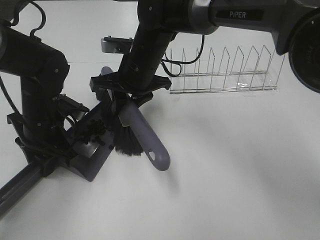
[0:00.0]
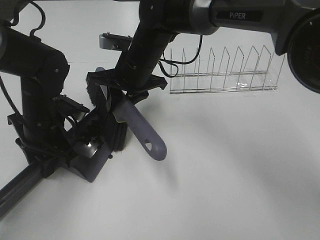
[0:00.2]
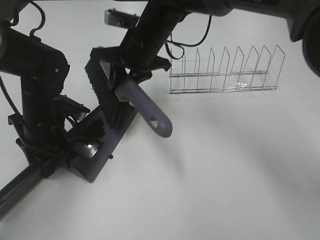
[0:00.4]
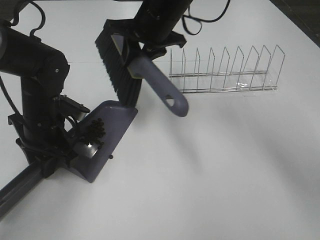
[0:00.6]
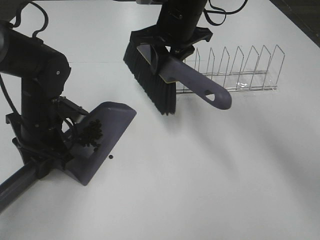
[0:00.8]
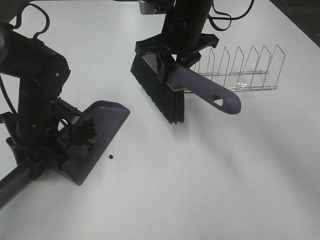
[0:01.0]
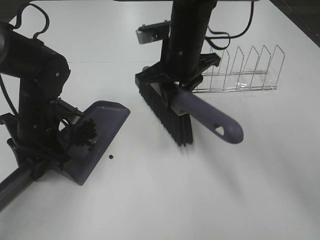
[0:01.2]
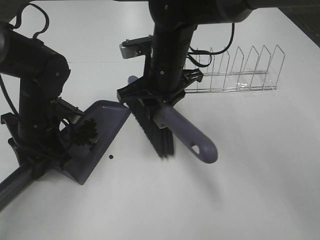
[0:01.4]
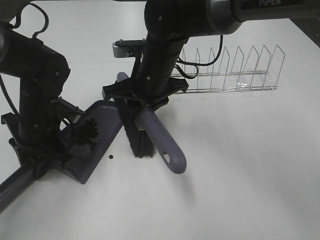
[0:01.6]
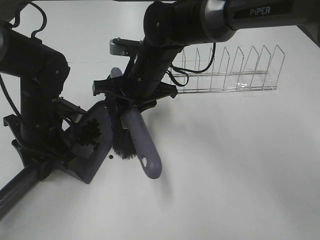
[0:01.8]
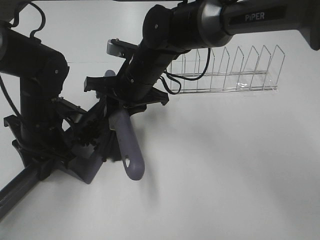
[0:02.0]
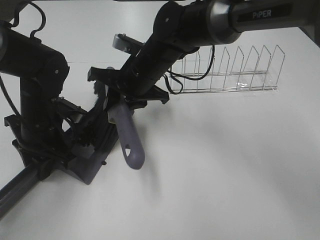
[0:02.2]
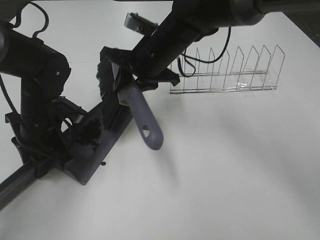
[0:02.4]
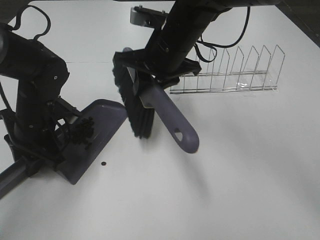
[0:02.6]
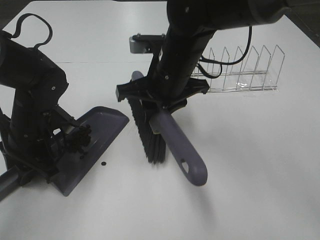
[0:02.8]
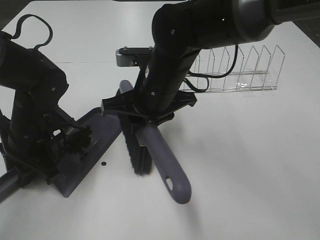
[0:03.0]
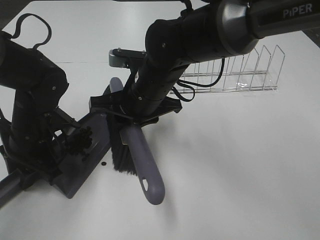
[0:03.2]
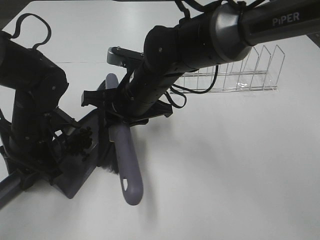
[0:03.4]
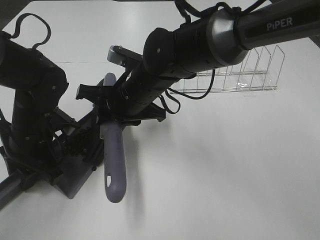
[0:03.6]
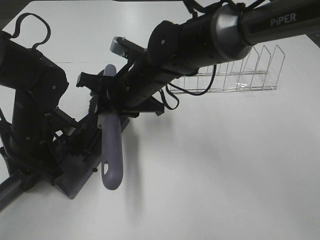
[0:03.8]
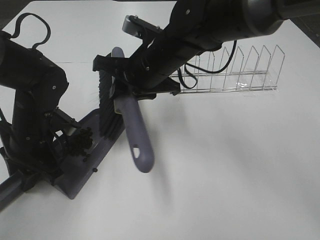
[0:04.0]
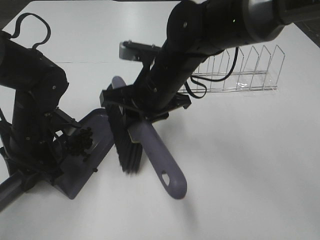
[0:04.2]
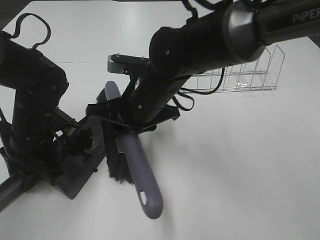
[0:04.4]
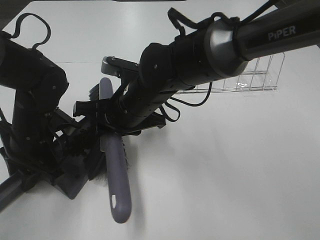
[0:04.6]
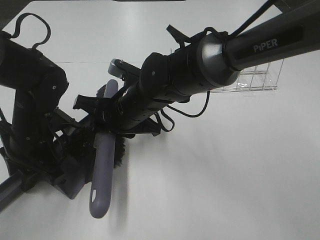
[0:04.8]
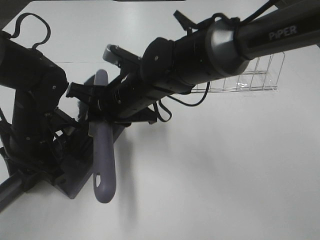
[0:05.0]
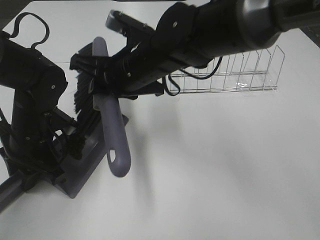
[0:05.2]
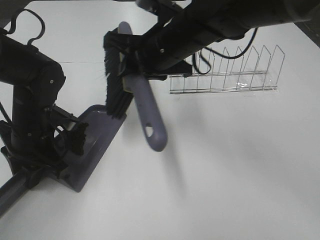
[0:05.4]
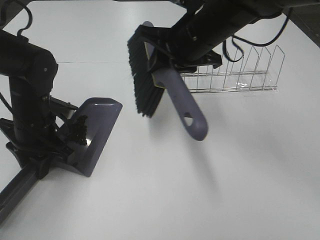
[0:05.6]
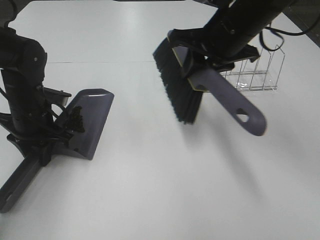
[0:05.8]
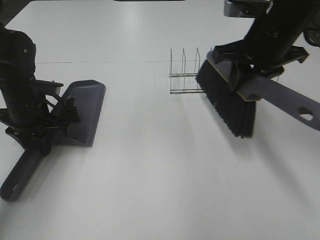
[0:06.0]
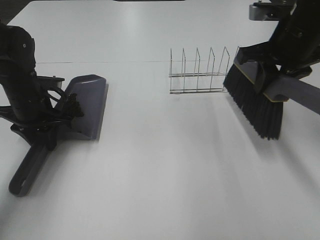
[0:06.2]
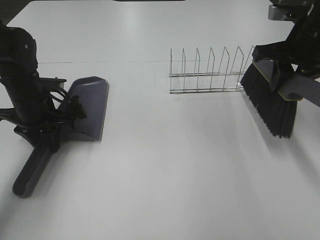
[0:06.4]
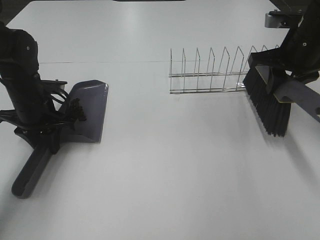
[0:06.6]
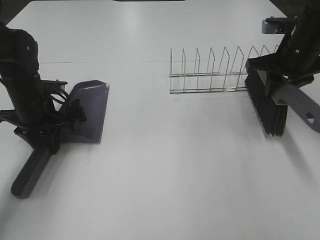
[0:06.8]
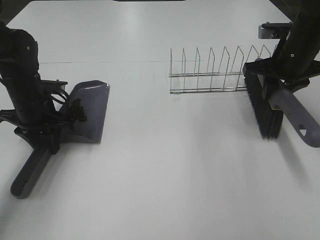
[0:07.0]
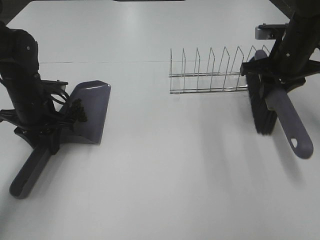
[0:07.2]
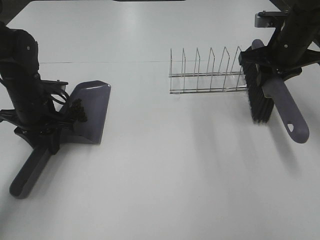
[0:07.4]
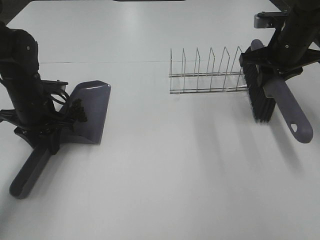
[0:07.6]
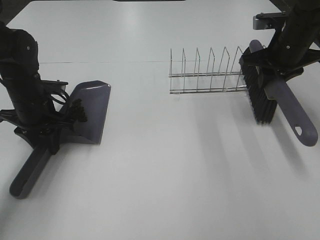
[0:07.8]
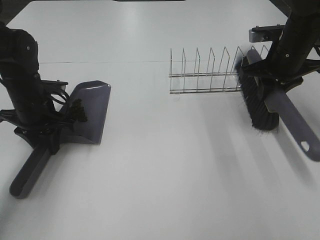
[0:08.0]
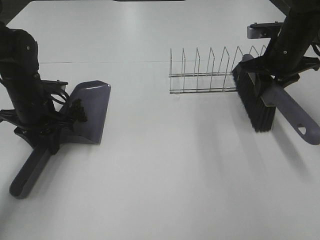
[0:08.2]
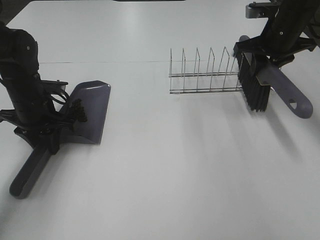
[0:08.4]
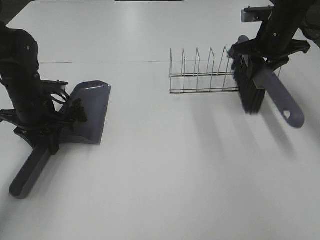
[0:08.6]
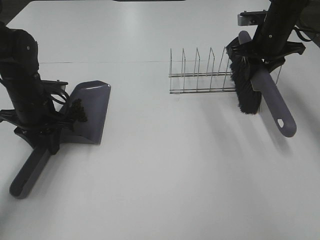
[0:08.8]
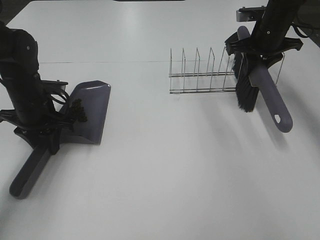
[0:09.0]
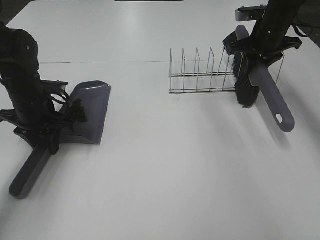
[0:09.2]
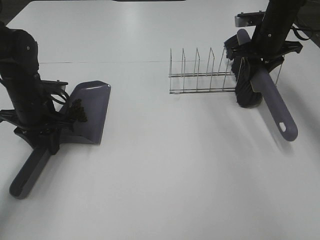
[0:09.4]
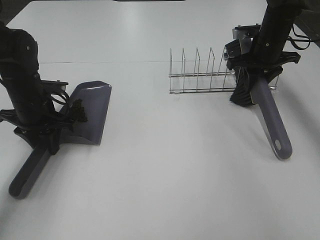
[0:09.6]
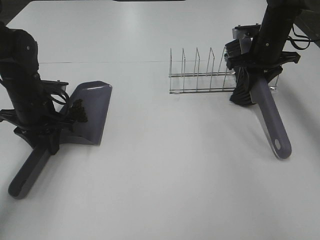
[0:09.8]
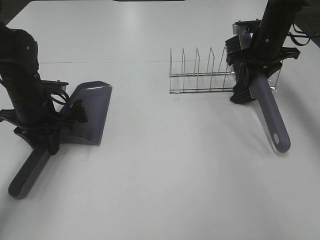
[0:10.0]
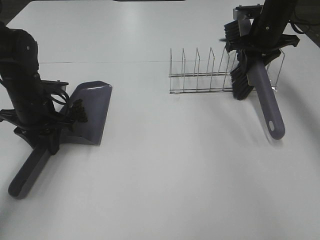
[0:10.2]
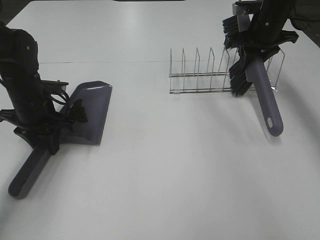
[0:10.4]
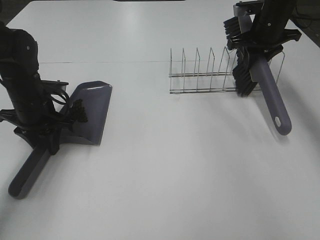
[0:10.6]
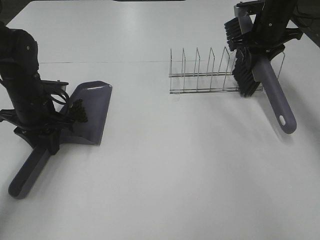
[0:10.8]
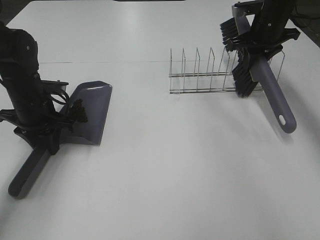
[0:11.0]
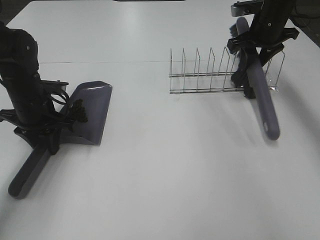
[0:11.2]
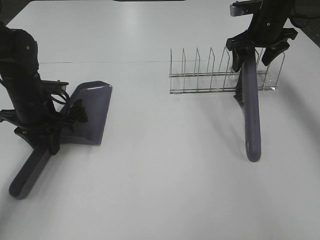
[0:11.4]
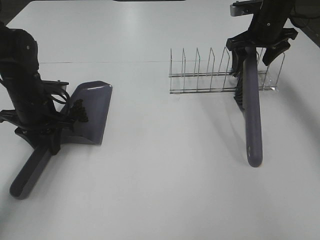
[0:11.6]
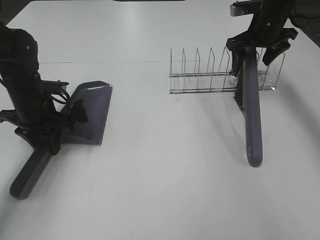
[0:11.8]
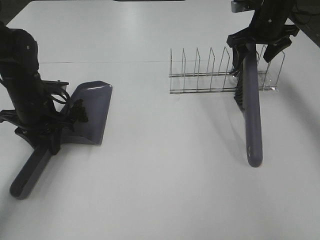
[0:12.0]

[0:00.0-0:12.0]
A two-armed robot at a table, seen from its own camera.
Task of the whole recording: Sweep Coffee Bean.
Step, 0:00.0 to 0:05.2: Right hand:sweep the coffee beans into the dustpan.
Step, 0:05.4 to 0:11.4: Right hand:place the broom on the rack.
0:00.0 to 0:01.6: The right gripper reaches roughly 10 cm upward, then returns.
0:01.6 to 0:03.0: The right gripper heads backward, covering roughly 5 cm.
0:04.4 to 0:06.0: The left gripper shifts roughly 5 cm forward; the right gripper moves to the right and upward, some 20 cm.
0:06.0 to 0:07.6: The right gripper travels to the right, forward and downward by about 10 cm.
0:07.6 to 0:09.0: The right gripper heads forward, covering approximately 5 cm.
0:09.0 to 0:10.4: The grippers stay close to where they were, moving slightly.
0:10.4 to 0:12.0: The right gripper opens.

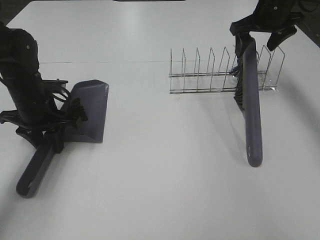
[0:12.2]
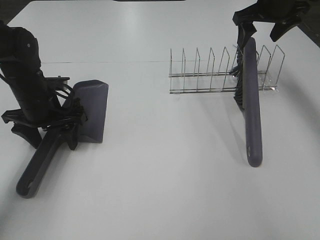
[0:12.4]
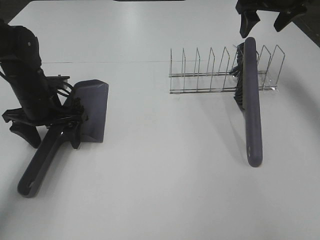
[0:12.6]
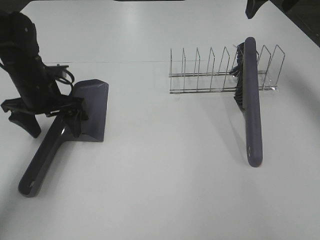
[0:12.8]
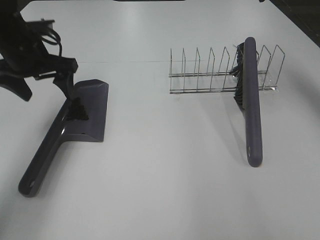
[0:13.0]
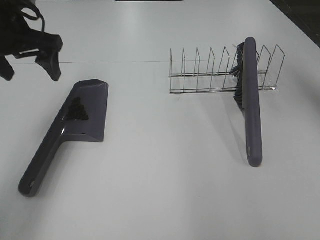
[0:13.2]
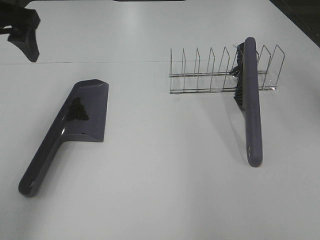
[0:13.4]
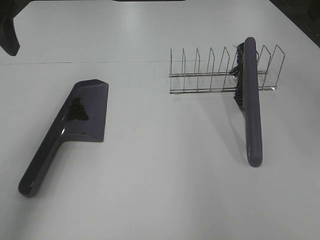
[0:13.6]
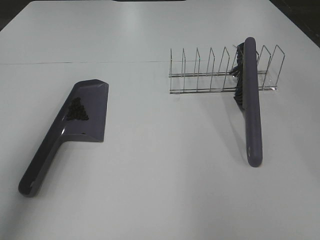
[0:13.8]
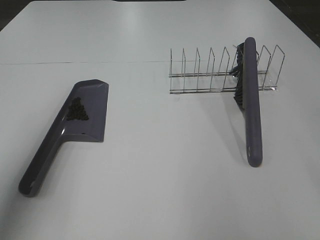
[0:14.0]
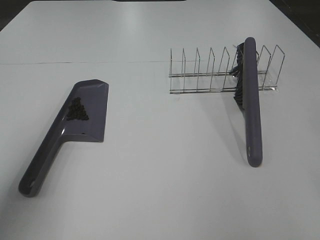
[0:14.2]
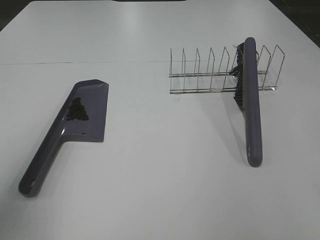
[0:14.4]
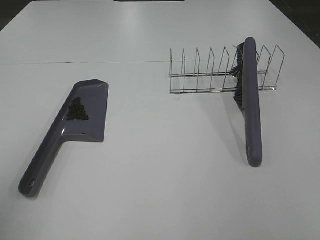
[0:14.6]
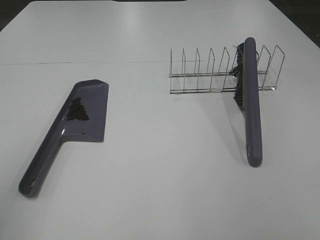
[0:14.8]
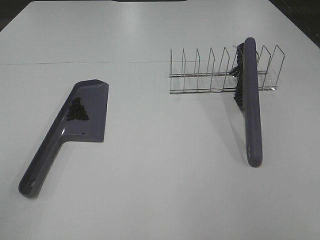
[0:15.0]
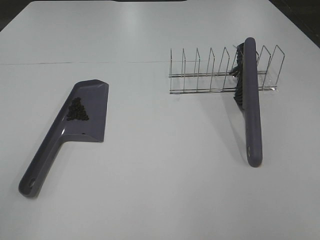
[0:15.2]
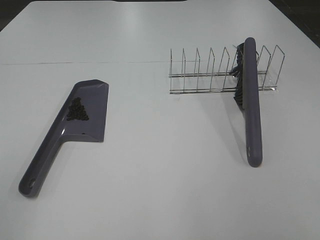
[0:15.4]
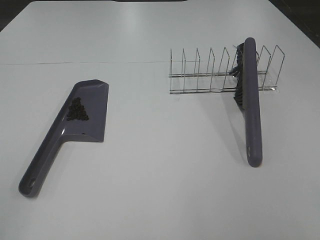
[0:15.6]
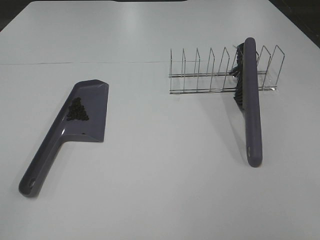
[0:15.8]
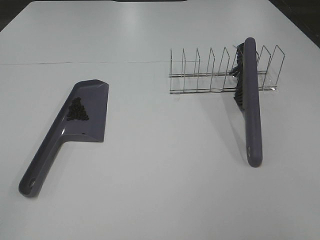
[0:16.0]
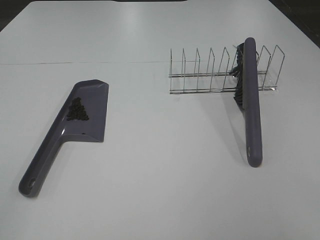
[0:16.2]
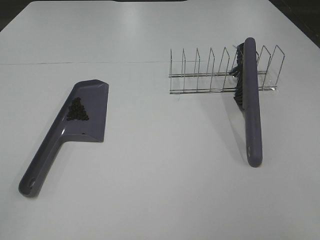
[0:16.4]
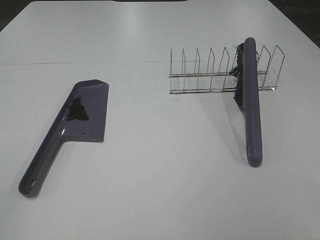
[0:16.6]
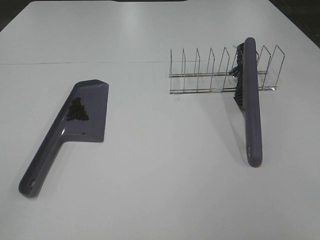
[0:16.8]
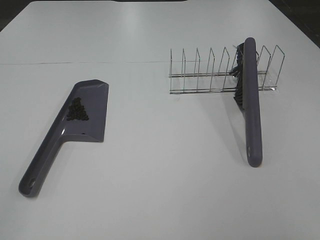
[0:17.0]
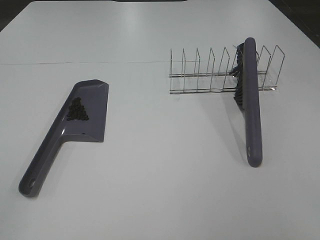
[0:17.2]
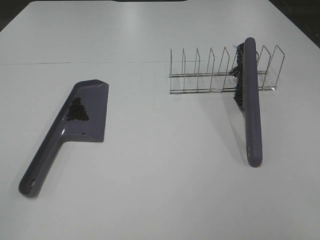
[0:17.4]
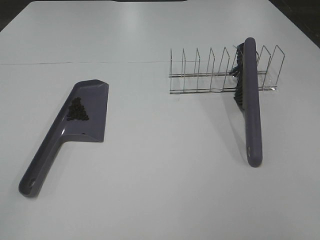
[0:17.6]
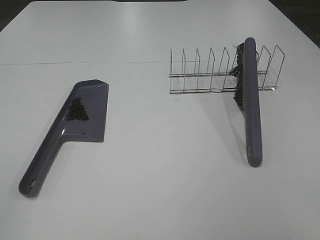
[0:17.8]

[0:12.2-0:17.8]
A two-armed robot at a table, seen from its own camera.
Task of the whole recording: Sweep Coffee Bean.
0:12.2 to 0:13.6: The left gripper is displaced upward by some 25 cm, and opens its fingers, while the right gripper shifts roughly 25 cm backward and upward.
0:13.6 to 0:15.0: The left gripper heads backward, covering about 25 cm.
0:16.4 to 0:17.8: The two grippers keep their place.

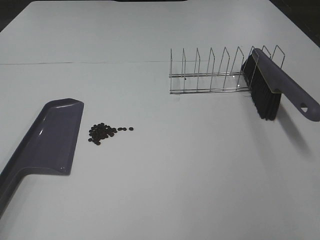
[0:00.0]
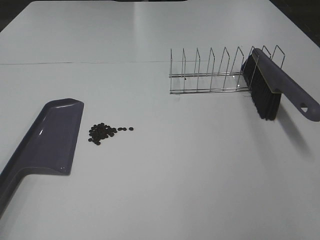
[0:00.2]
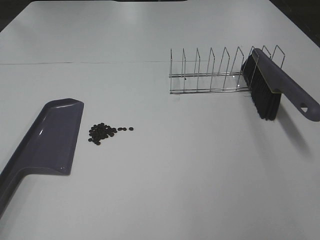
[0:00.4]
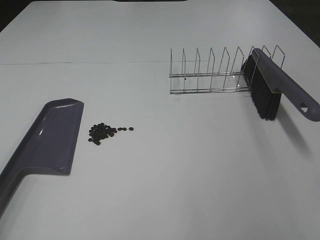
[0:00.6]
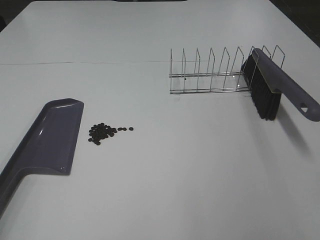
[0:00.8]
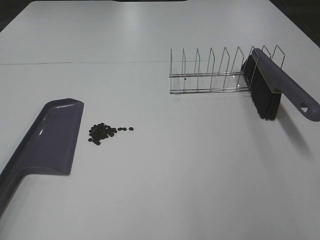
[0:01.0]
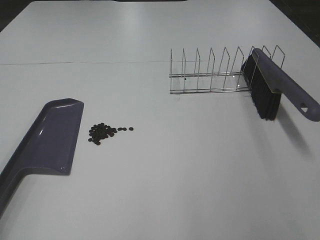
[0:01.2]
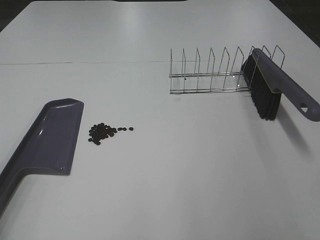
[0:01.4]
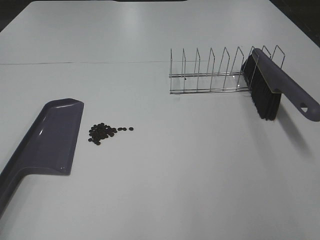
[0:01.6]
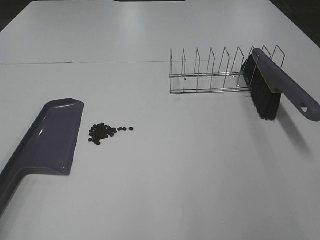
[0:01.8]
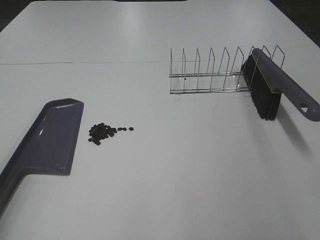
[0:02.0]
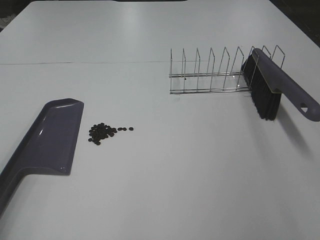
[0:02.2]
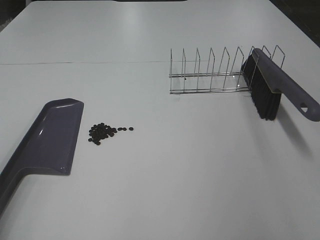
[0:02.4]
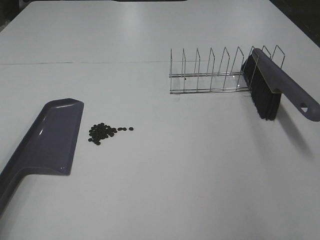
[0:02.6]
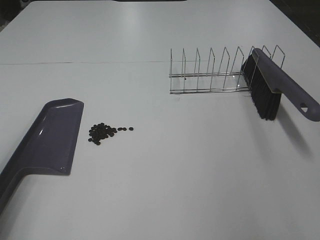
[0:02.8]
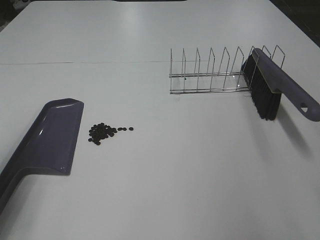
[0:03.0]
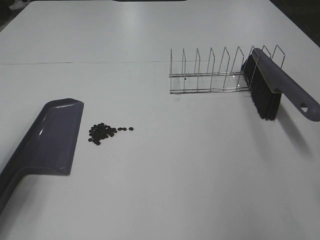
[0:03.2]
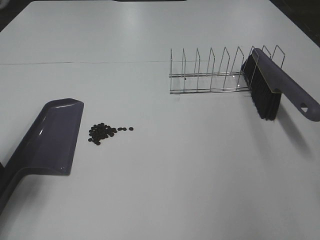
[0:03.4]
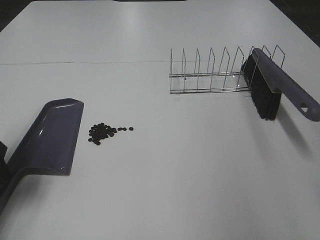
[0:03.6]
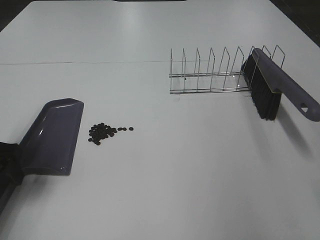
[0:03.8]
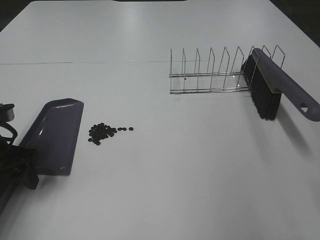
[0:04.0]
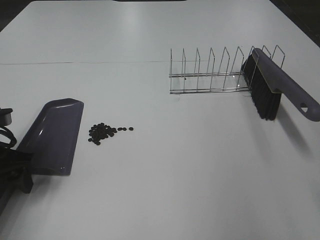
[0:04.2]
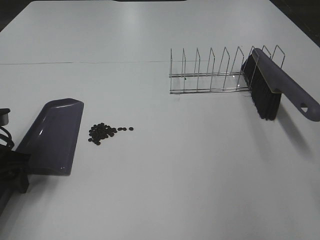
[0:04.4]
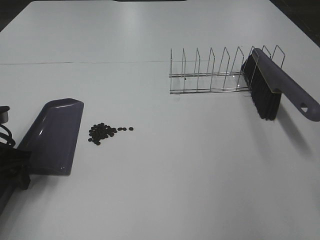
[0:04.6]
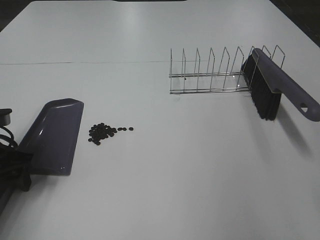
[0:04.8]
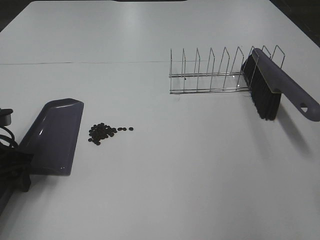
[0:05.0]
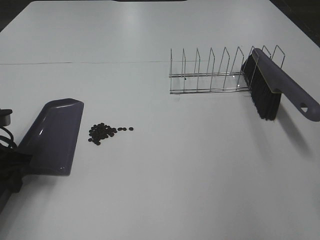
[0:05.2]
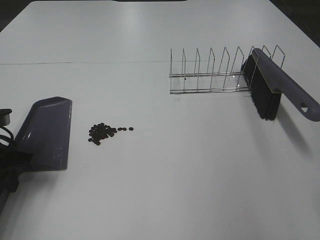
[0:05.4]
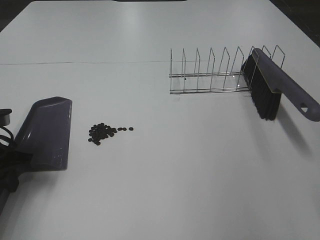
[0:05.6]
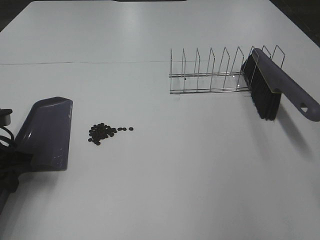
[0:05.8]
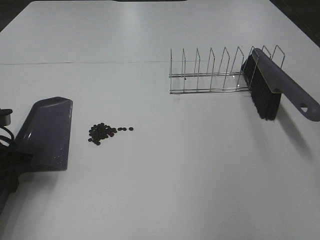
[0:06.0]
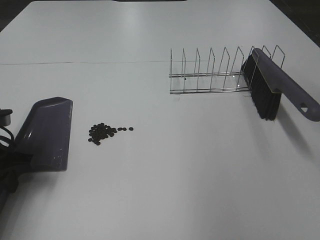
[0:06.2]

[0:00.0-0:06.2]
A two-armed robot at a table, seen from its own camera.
Task of the whole recording: Sweep Coffee Bean.
Step, 0:00.0 to 0:05.4: Left hand: grab the dustpan.
0:01.6 to 0:03.2: The left gripper moves forward and downward, roughly 20 cm.
0:03.2 to 0:04.6: The left gripper heads downward and forward, covering roughly 10 cm.
0:04.6 to 0:06.2: The left gripper closes up.
